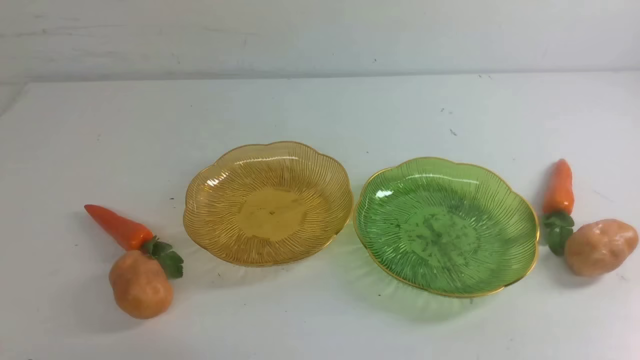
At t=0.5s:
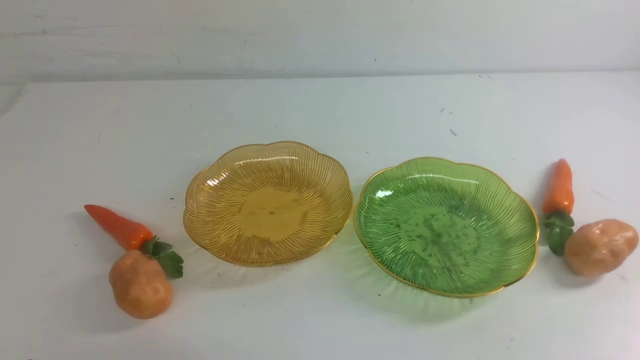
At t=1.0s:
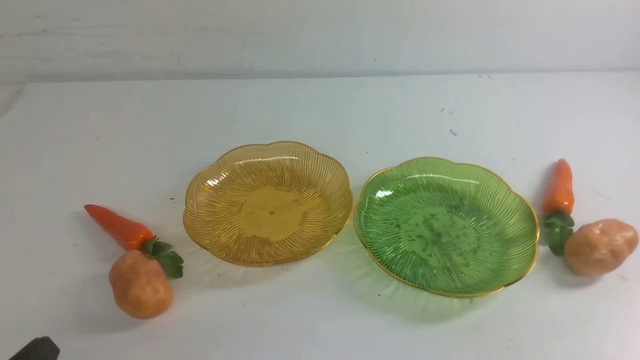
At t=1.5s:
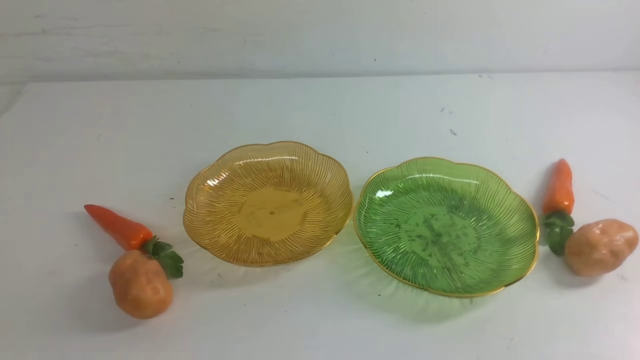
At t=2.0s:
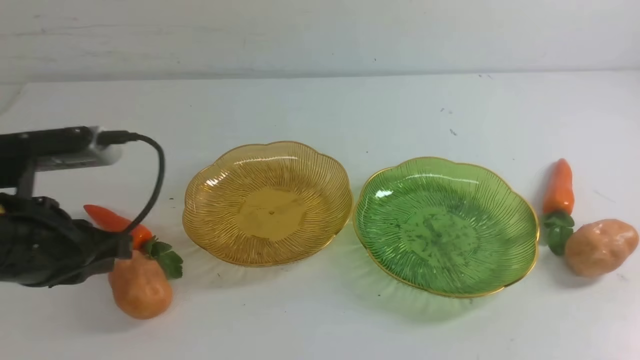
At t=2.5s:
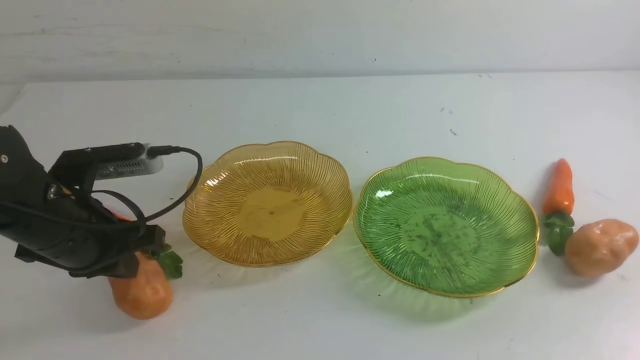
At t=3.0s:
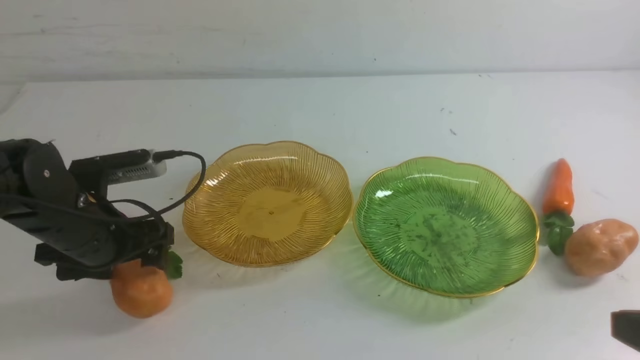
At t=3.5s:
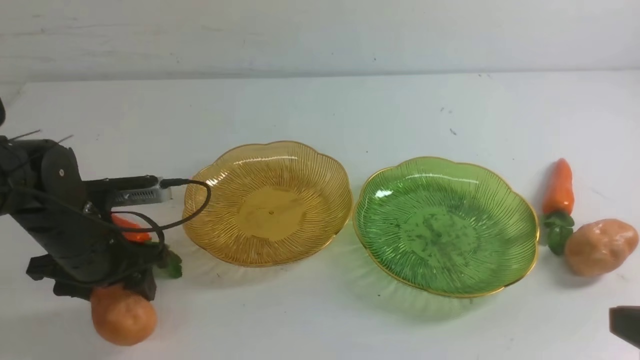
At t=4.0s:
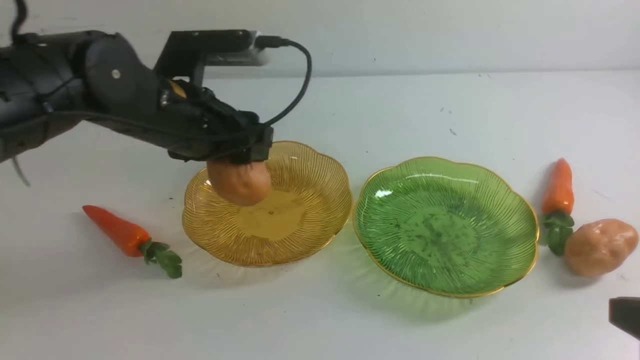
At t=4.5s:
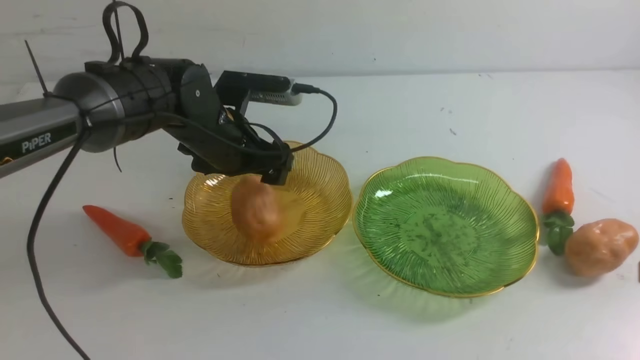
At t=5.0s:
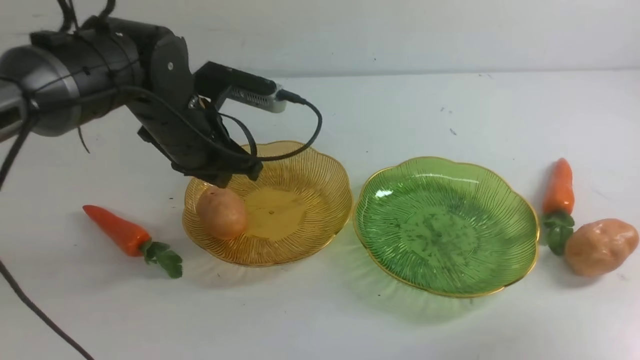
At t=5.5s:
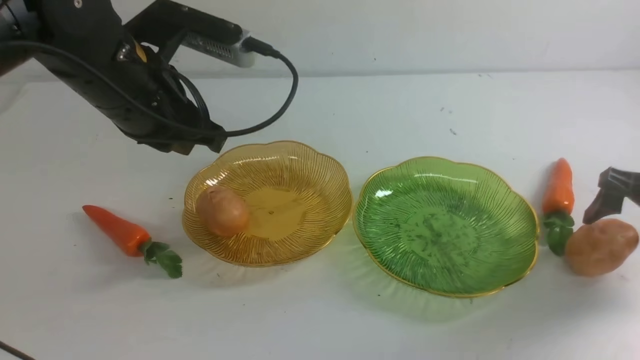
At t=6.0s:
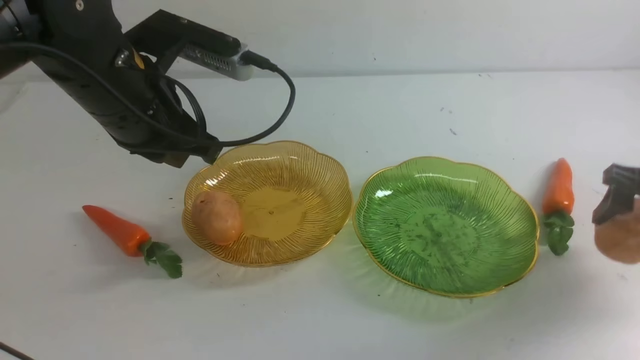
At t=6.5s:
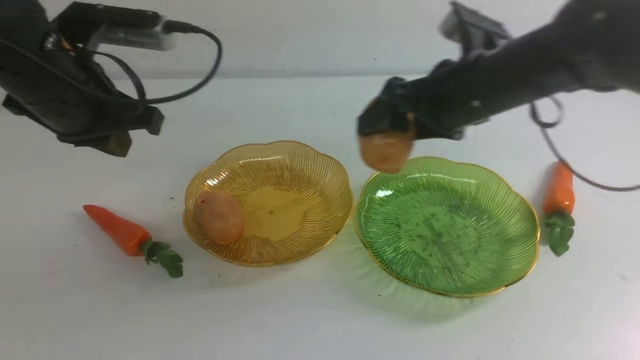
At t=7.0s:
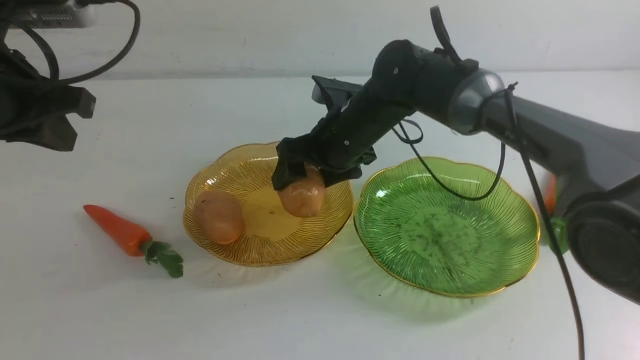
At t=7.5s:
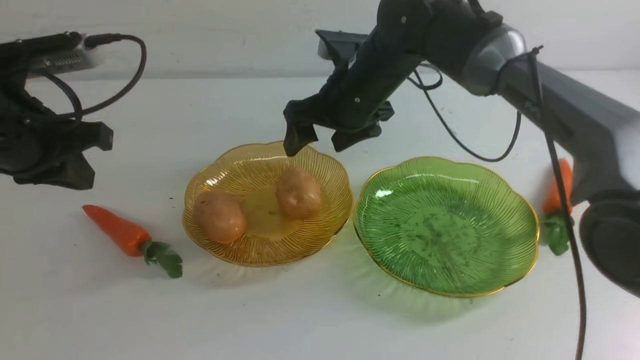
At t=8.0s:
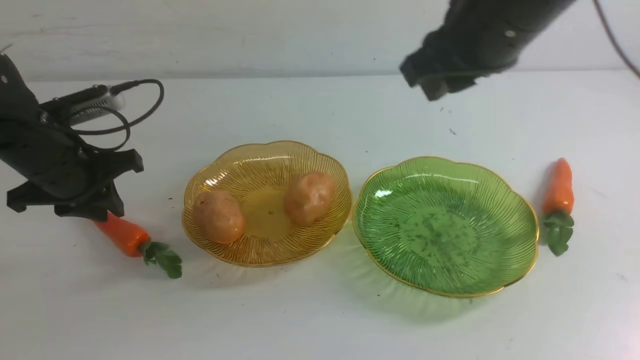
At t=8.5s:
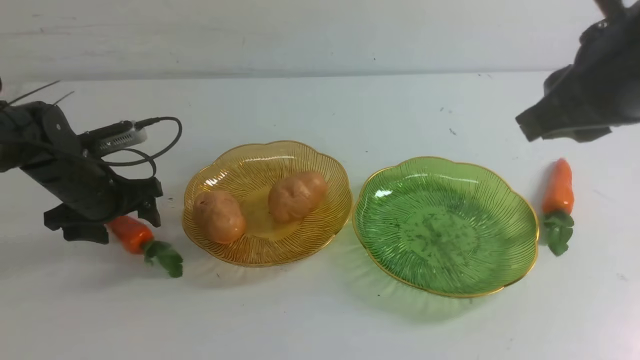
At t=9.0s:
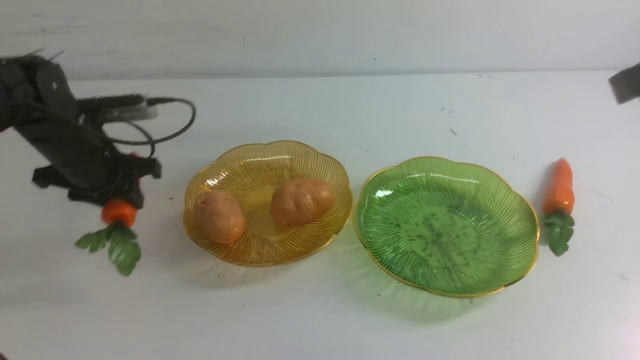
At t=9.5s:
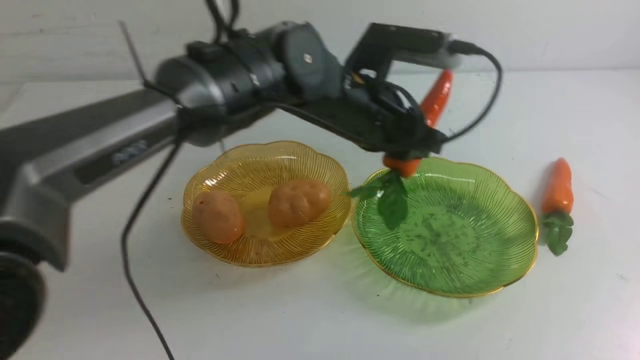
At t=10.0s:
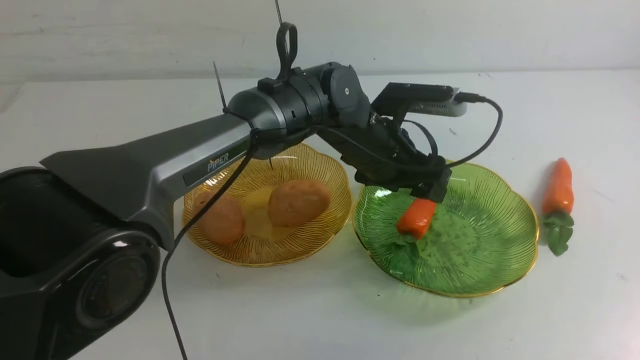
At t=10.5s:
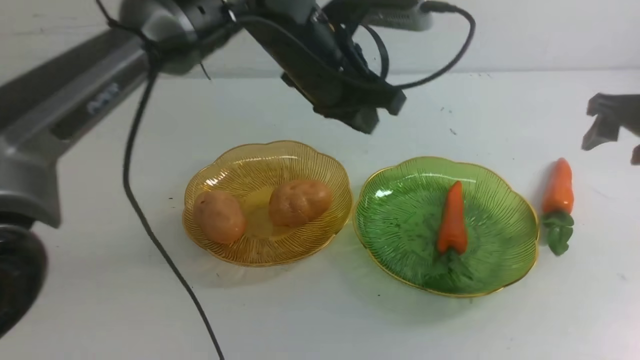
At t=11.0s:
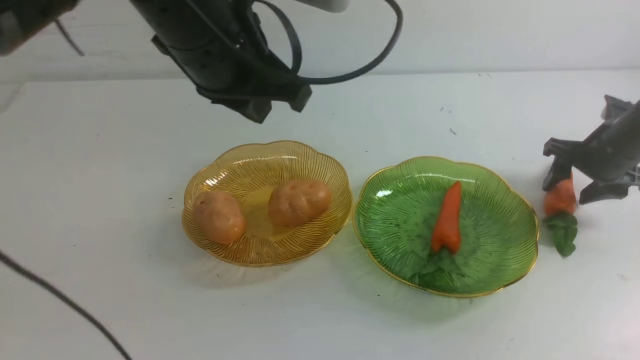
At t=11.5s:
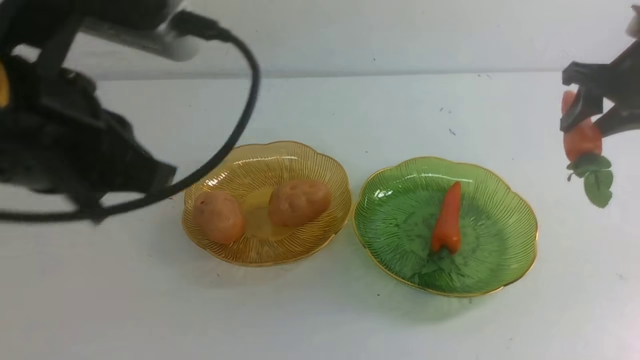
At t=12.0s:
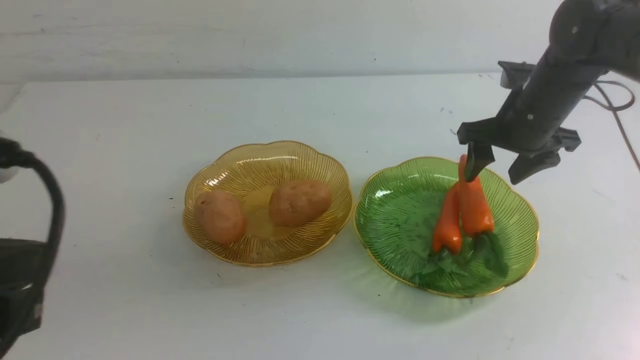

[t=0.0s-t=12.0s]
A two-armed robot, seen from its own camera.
Step, t=0.0s to t=4.5s: Grab a potato with your left arm and put it on the left plate.
Step, t=5.0s to t=7.5s: Grab a potato with your right arm and put it on the left plate.
Step, t=8.0s to t=10.0s: use the left arm to grab a carrot and put it into the right plate.
Step, t=10.5s to t=12.0s: use the right arm to grab a carrot and put it into the right plate.
t=0.0s to t=2.0s: The left gripper moves forward and upward, approximately 20 cm.
t=2.0s to t=4.0s: The left gripper shifts approximately 15 cm forward and to the right, and opens up, while the right gripper heads upward and forward, covering about 10 cm.
t=4.0s to t=6.0s: The left gripper goes roughly 5 cm upward, and closes. Meanwhile the right gripper is displaced forward by roughly 25 cm, and opens its fingers.
t=6.0s to t=8.0s: The right gripper heads to the left and upward, covering some 20 cm, and closes its fingers, while the left gripper heads to the left and downward, covering roughly 15 cm, and opens up.
t=8.0s to t=10.0s: The left gripper moves to the right, approximately 25 cm, and opens and closes again. The right gripper is displaced to the right and downward by some 25 cm, and opens up.
t=10.0s to t=12.0s: The left gripper moves backward and to the left, some 35 cm; the right gripper is displaced backward and upward by approximately 30 cm, and closes its fingers.

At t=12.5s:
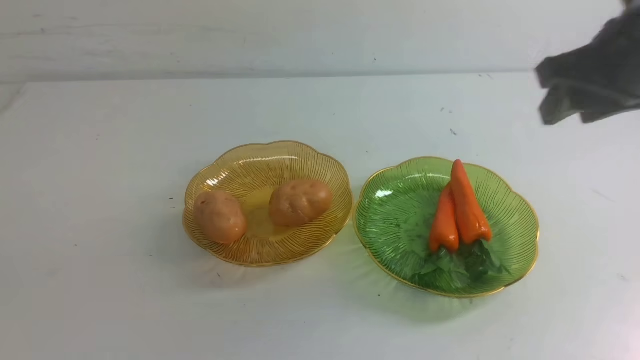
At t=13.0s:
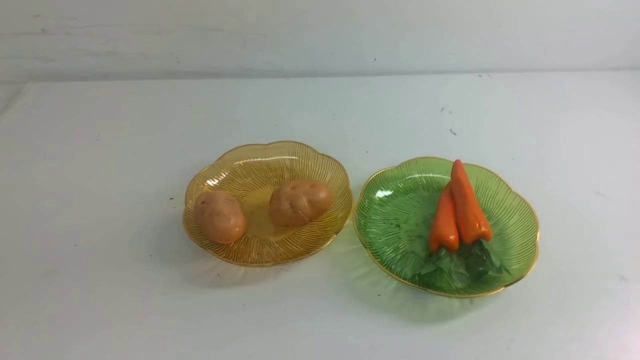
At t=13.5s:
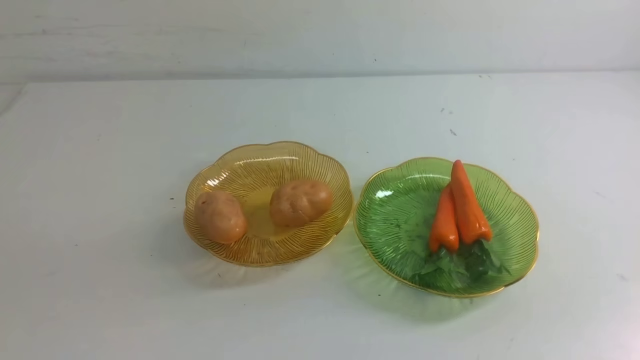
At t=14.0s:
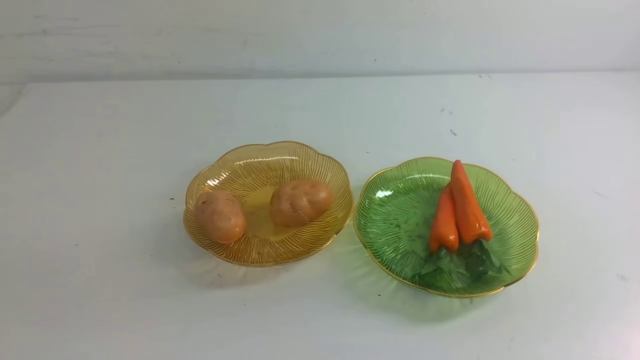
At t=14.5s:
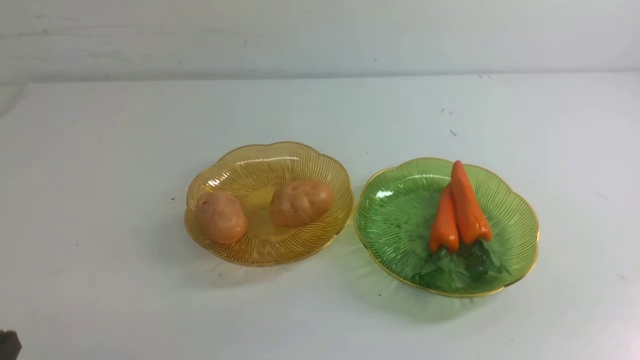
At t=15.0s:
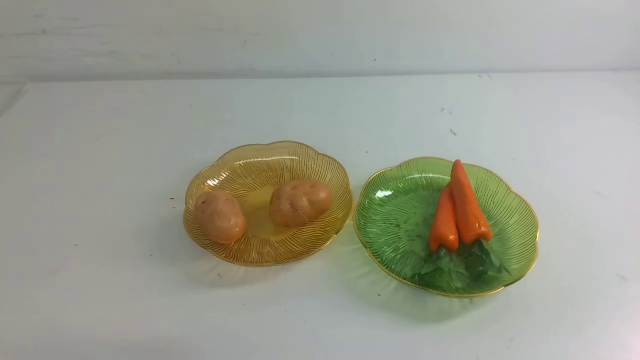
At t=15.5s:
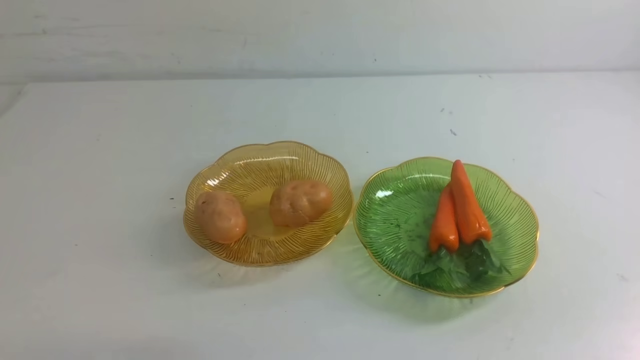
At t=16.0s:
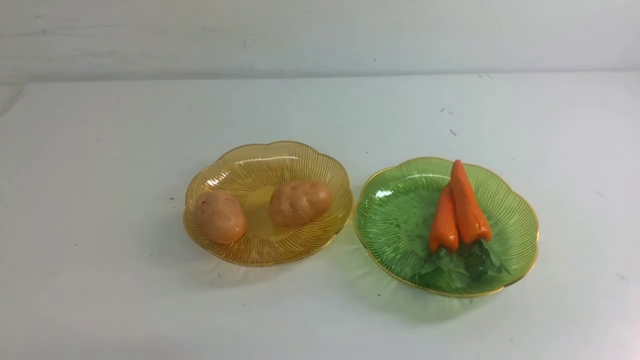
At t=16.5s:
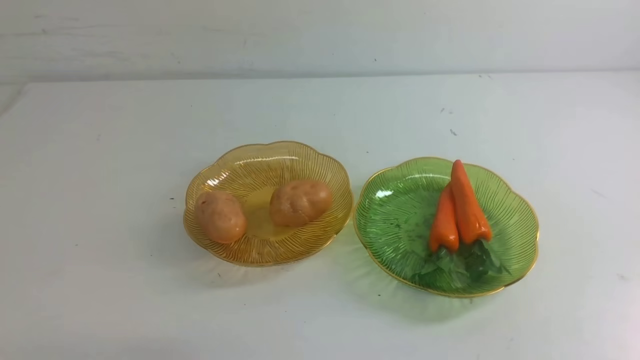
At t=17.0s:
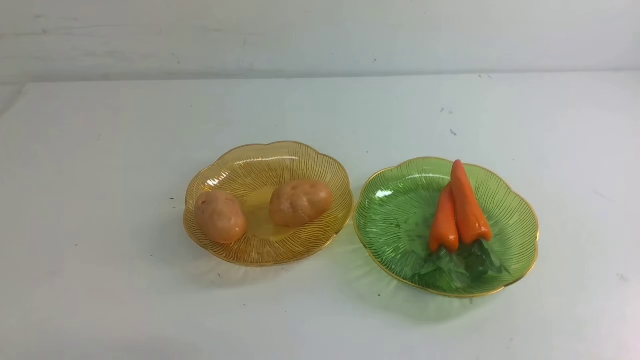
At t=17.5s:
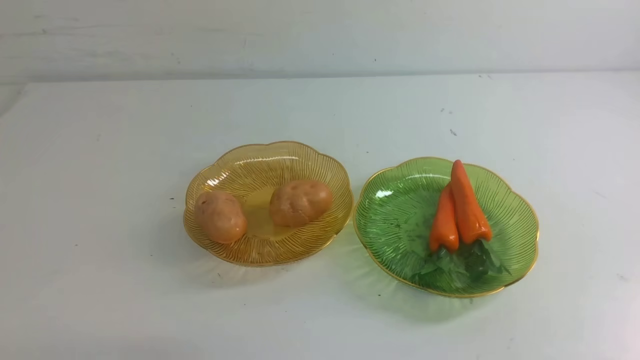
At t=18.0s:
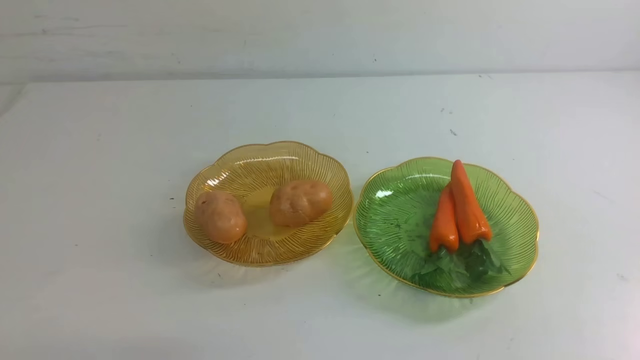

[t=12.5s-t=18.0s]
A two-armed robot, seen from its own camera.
t=16.0s to t=18.0s: The two grippers keep their place.
